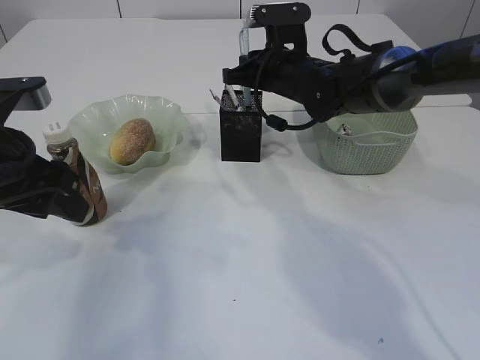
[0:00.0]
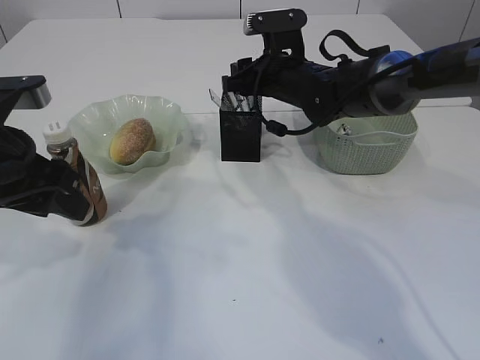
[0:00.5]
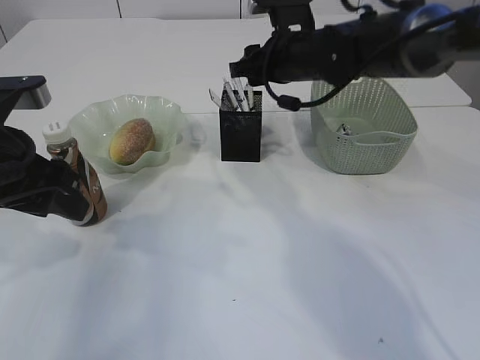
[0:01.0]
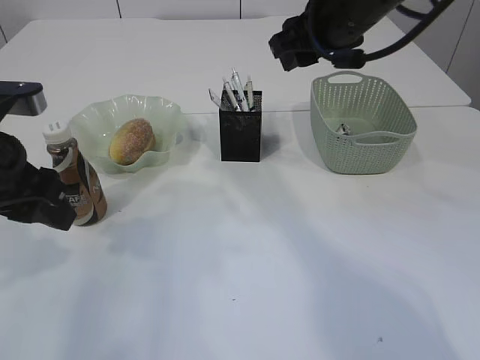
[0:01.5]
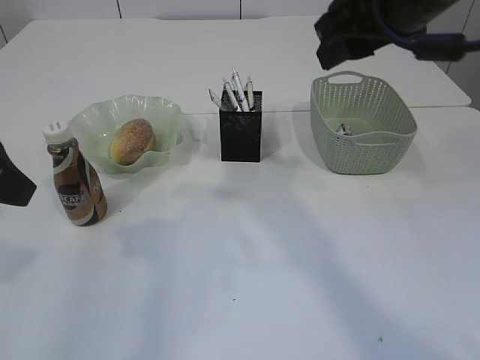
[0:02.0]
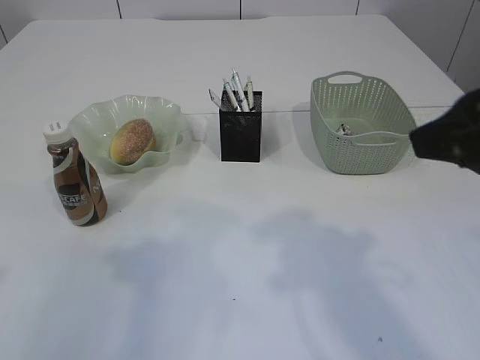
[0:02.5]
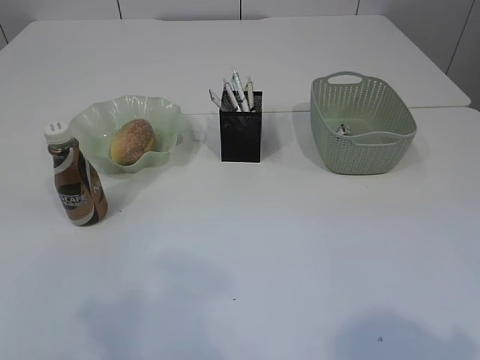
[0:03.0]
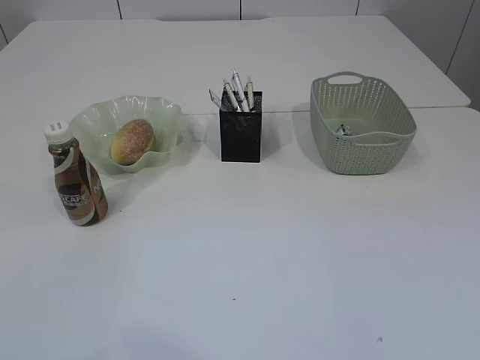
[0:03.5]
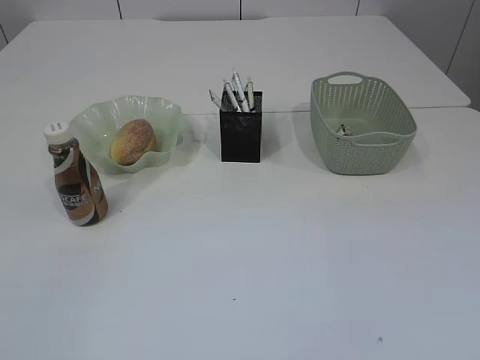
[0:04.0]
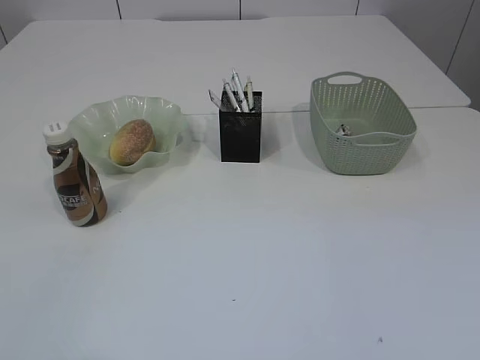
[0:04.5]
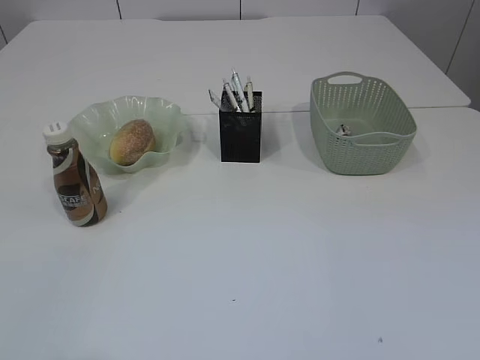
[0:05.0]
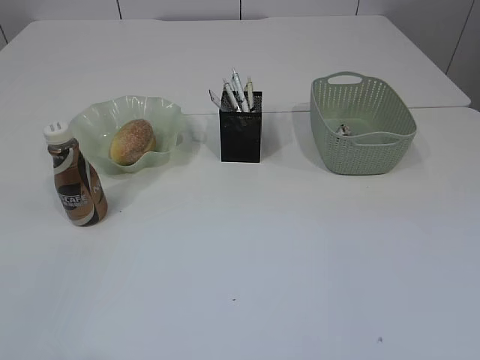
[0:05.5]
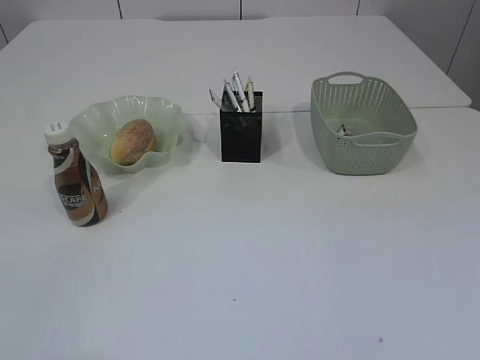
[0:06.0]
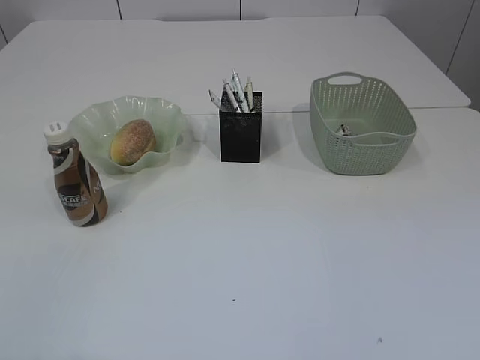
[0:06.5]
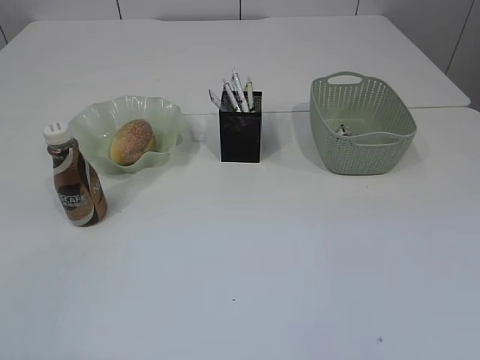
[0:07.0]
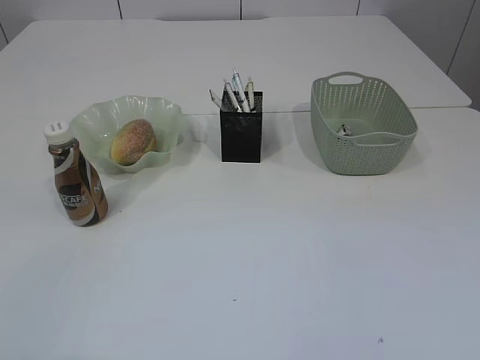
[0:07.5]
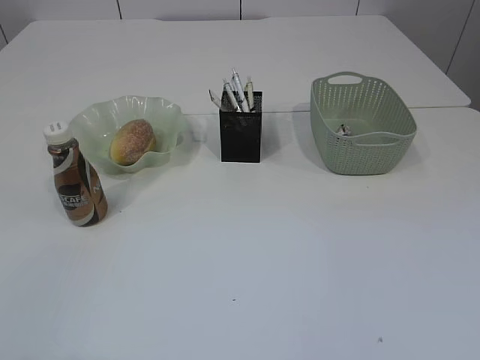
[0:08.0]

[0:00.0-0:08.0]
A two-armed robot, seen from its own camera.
0:00.0 to 0:02.0: The right gripper goes some 25 cm backward and upward, and opens, while the left gripper is displaced upward and backward by roughly 10 cm.
0:02.0 to 0:04.0: Both grippers move backward, about 30 cm.

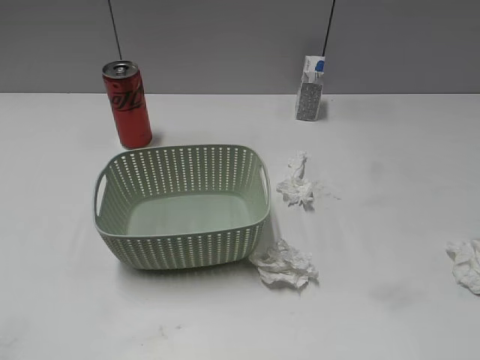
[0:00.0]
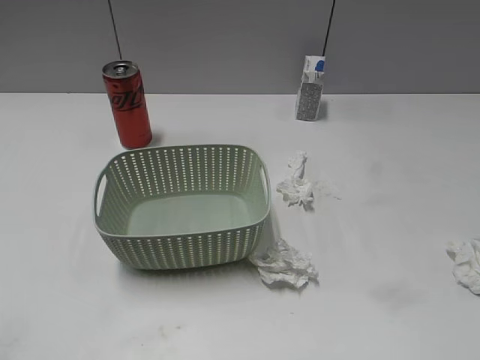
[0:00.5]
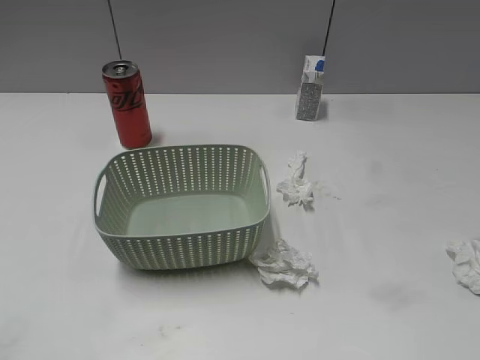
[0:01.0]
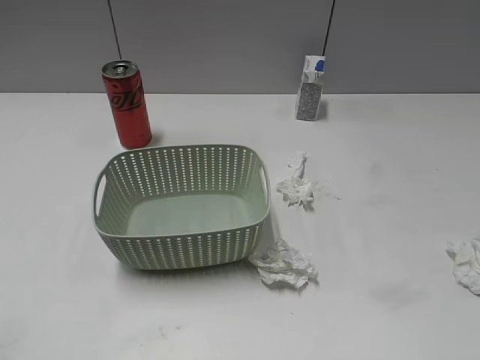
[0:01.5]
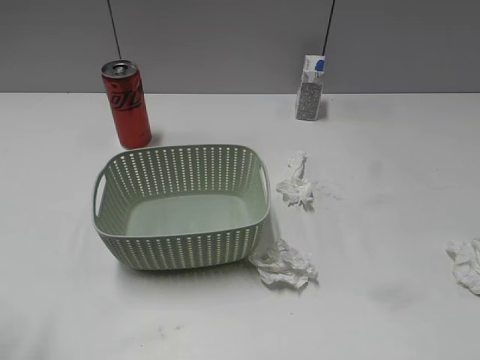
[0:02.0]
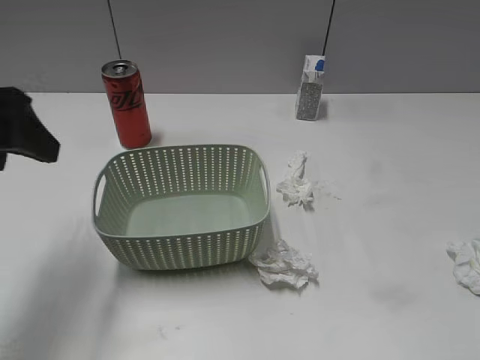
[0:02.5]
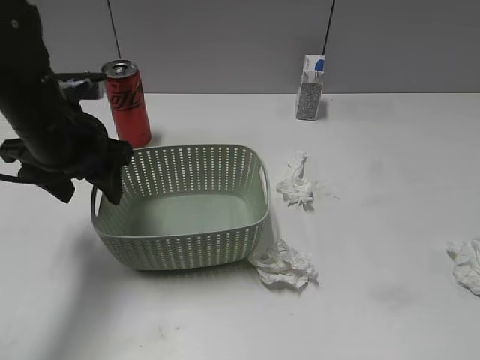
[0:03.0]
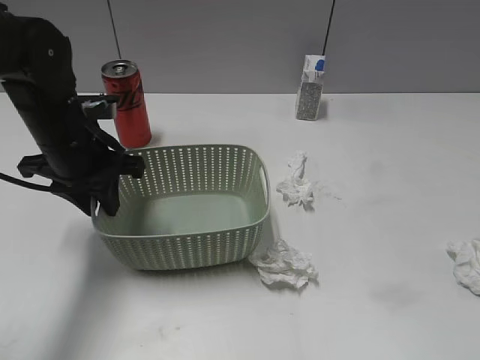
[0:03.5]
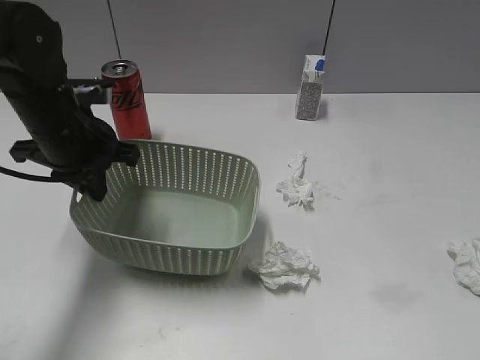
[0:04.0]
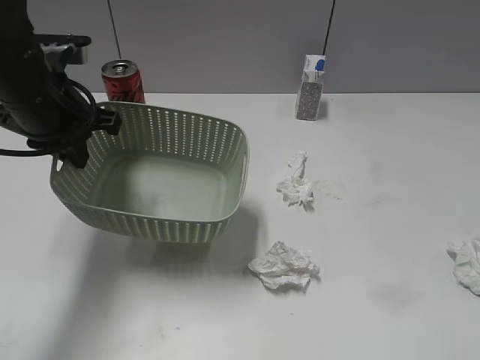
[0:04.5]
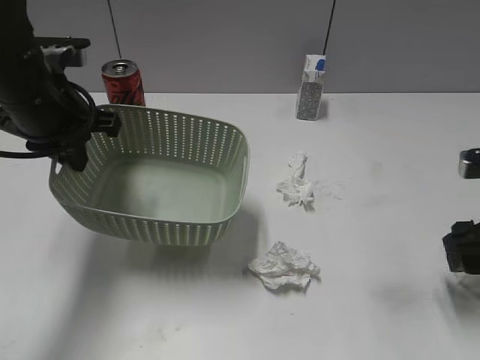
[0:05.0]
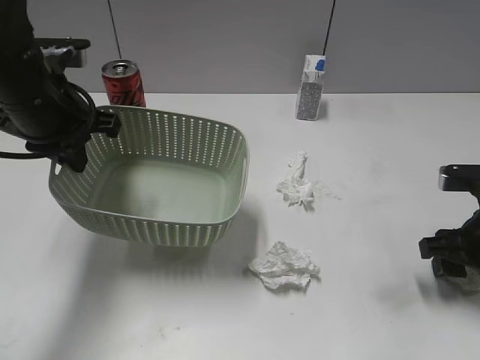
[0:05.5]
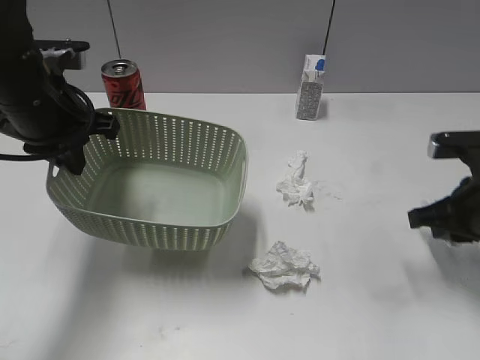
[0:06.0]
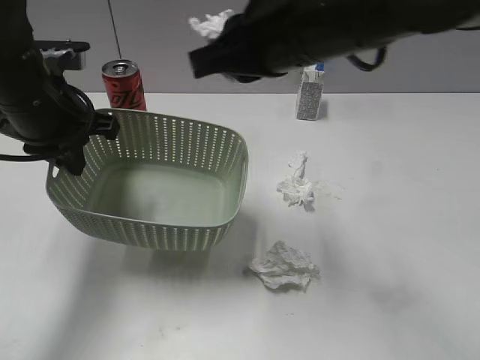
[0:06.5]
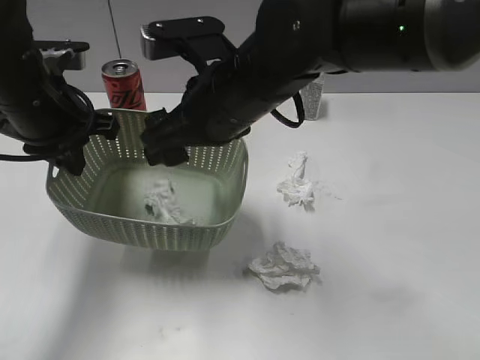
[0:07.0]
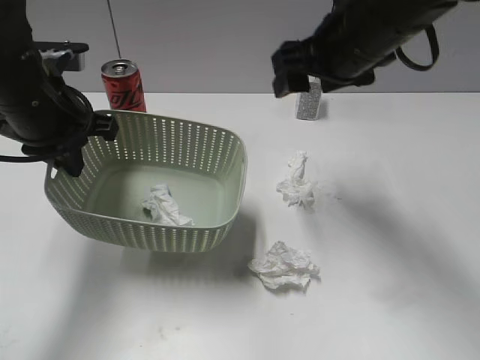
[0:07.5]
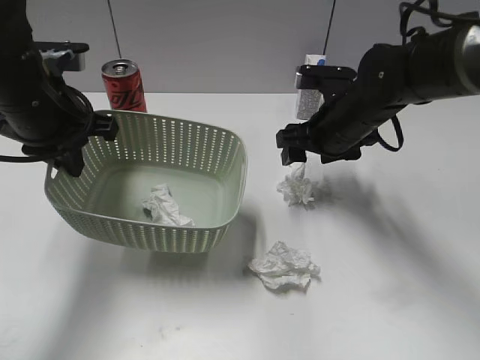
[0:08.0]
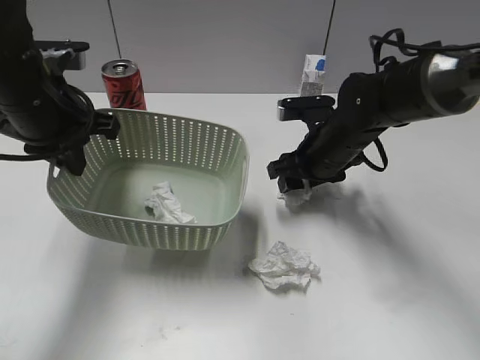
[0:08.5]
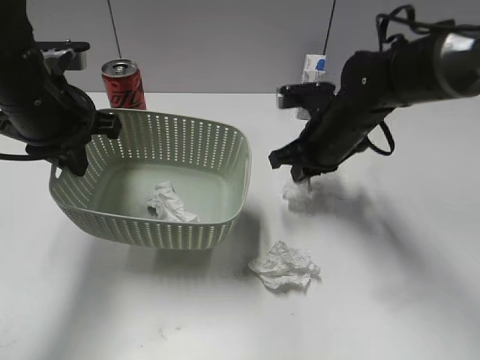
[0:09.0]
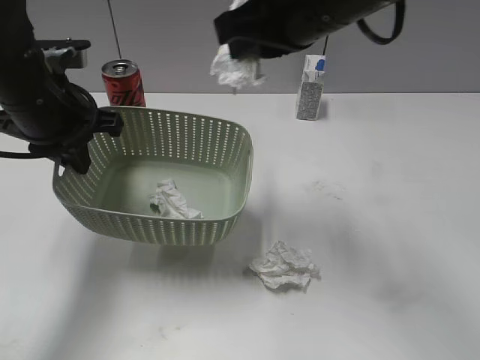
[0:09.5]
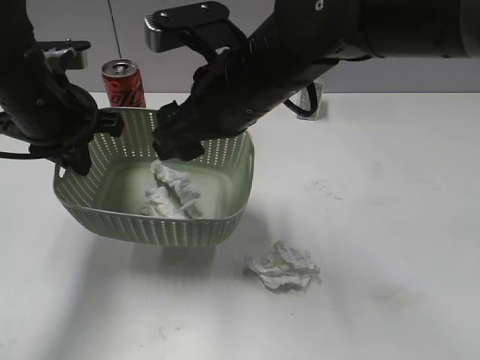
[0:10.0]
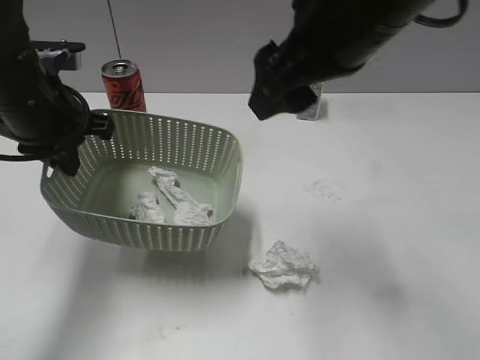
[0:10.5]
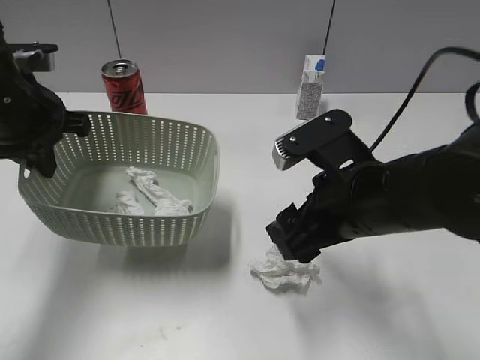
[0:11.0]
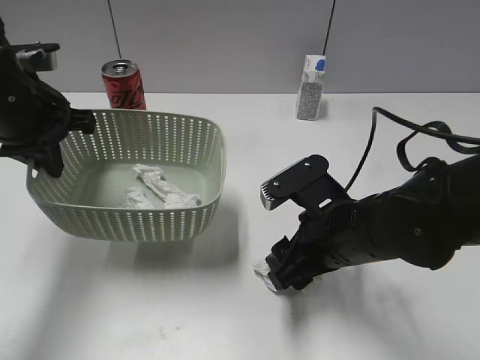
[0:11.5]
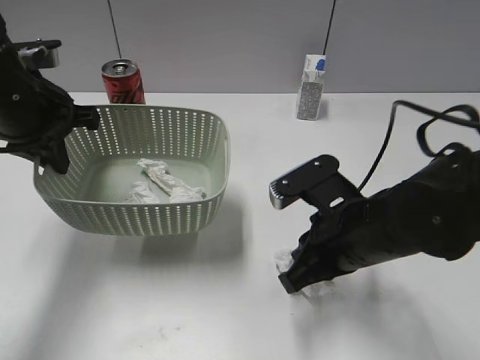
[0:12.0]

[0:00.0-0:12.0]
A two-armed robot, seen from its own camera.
Step, 0:02.5 to 0:03.5: Grasp the basket with left gripper.
Step, 0:04.0 to 0:04.5: Lift the basket with left gripper.
Step, 0:05.0 to 0:05.5: Grasp the waste paper with right gripper.
Step, 0:06.0 to 0:07.0: Place the waste paper in the basket with right gripper.
Step, 0:07.5 to 0:09.0: Grasp the waste paper with right gripper.
Step, 0:09.5 to 0:10.0: Place the waste paper in the basket with right gripper.
0:02.0 to 0:04.0: The left gripper heads forward, to the right and downward, covering roughly 30 cm, and closes up.
0:04.0 to 0:06.0: The right gripper travels forward and downward by approximately 30 cm, and closes up.
0:06.0 to 0:08.0: The right gripper heads to the left and forward, covering approximately 15 cm, and opens up.
0:08.0 to 0:10.0: The right gripper is displaced to the left, upward and backward by about 20 cm, and closes, then opens again.
0:10.0 to 0:12.0: The right gripper heads to the right, downward and backward, covering roughly 15 cm, and closes up.

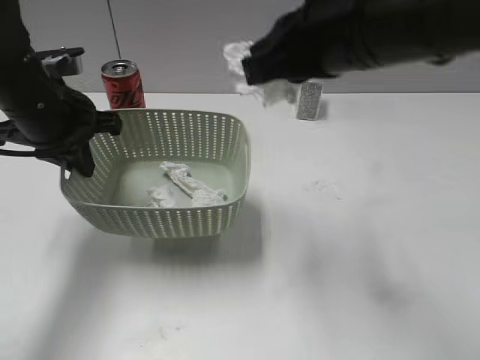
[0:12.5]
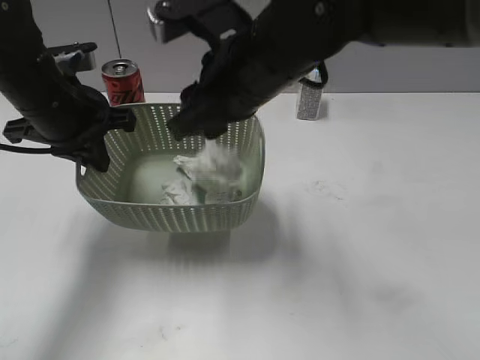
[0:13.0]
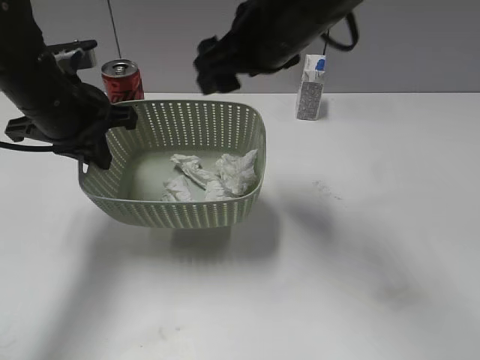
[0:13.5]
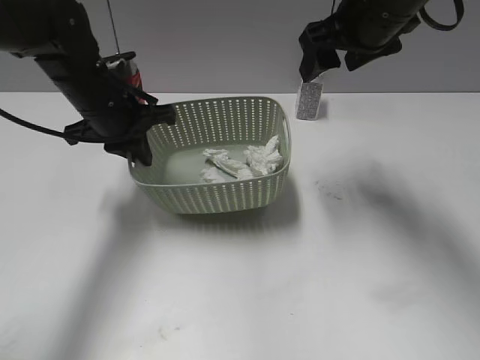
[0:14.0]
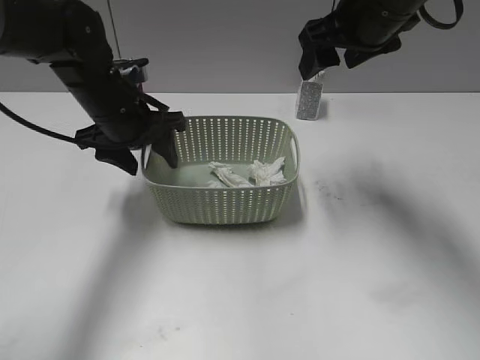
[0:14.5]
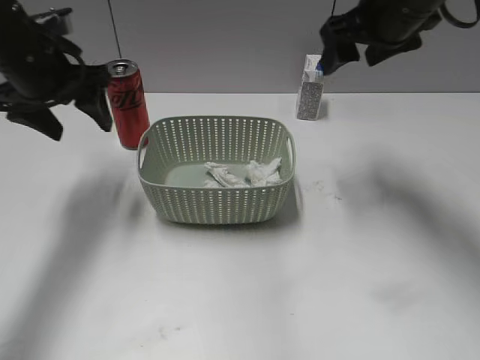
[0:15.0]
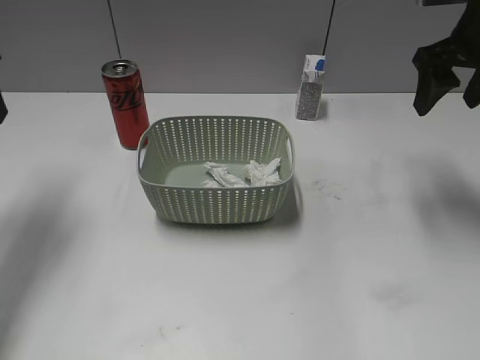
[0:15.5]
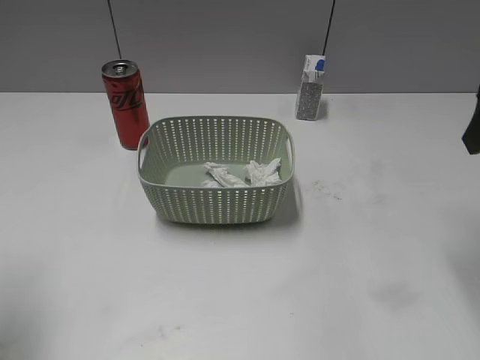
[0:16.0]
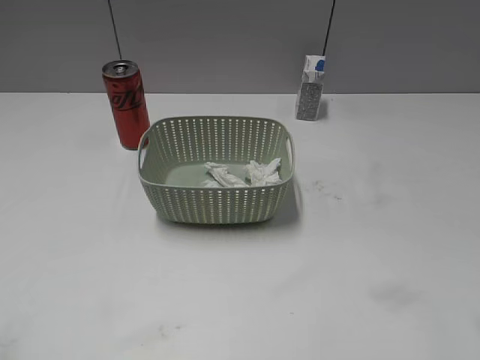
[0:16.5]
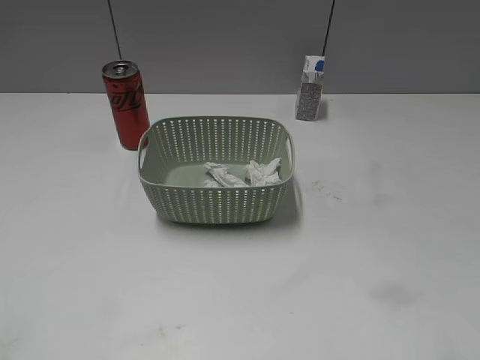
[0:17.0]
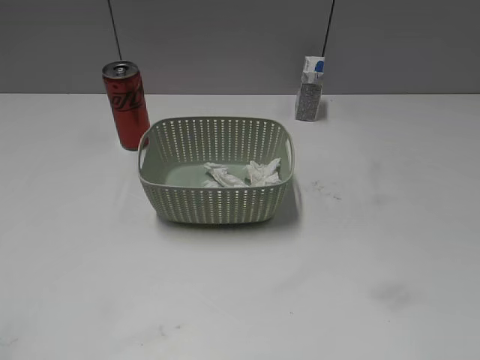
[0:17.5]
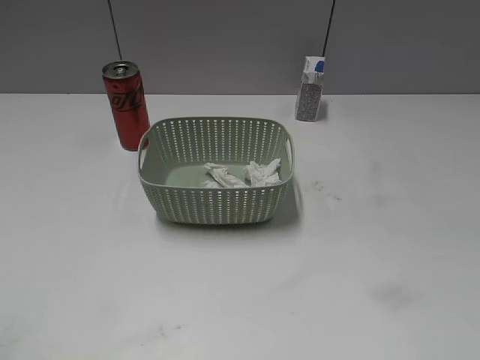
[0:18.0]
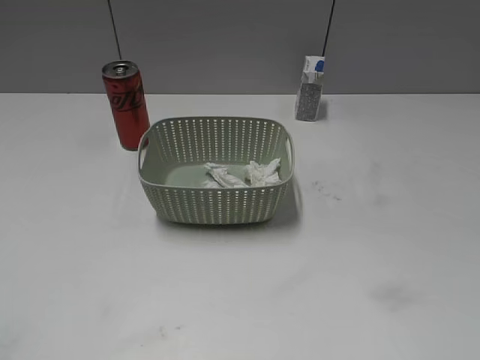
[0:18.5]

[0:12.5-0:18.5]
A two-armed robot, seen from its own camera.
Step, 0:12.5 to 0:13.0: Place the waste paper in the basket with right gripper.
Step, 0:13.5 to 0:14.5: Place the basket on the table with left gripper.
0:12.5 to 0:14.5: The left gripper goes roughly 5 cm to the right, and opens its fingers; the right gripper goes approximately 15 cm forward, and opens its fingers.
0:14.5 to 0:16.5: The right gripper heads backward and to the right, covering roughly 25 cm. The left gripper goes approximately 35 cm backward and to the left.
